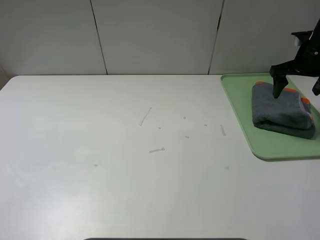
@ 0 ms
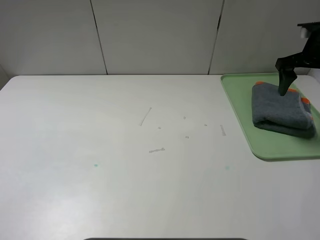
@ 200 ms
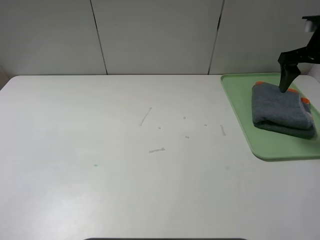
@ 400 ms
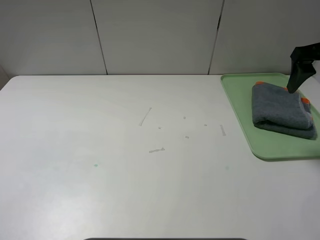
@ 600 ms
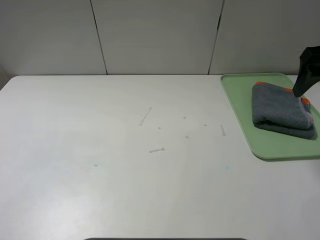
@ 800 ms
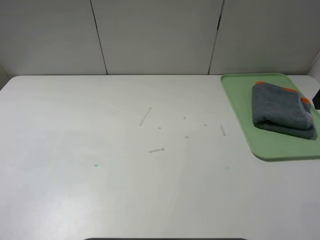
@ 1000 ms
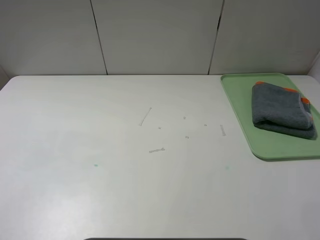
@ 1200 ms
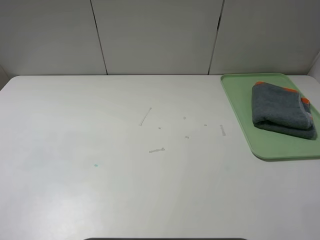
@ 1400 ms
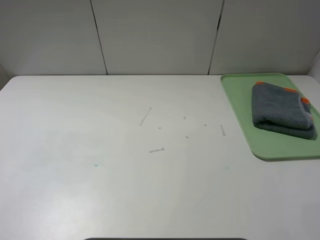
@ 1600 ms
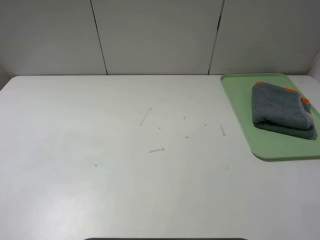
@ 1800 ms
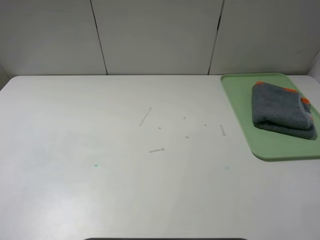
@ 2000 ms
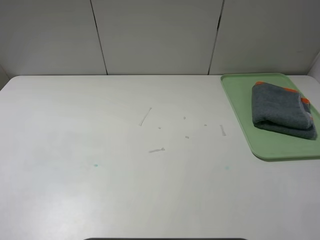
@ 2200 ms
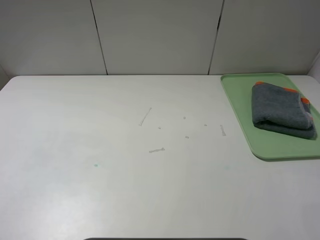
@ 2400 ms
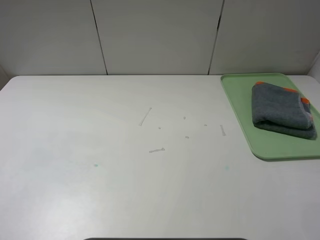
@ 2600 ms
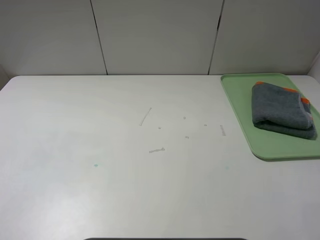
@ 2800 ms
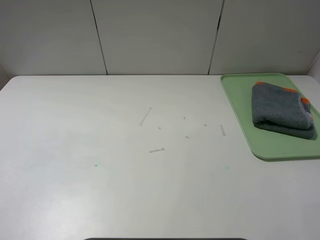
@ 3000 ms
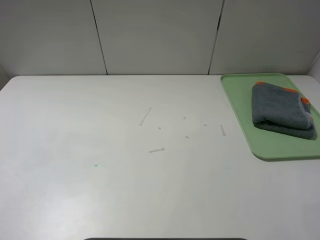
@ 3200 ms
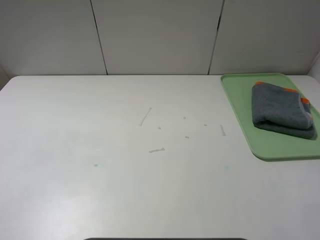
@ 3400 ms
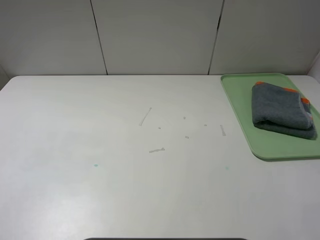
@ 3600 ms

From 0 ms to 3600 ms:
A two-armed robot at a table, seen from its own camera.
From 0 ms to 1800 ms: The right gripper travels backward by some 40 cm.
